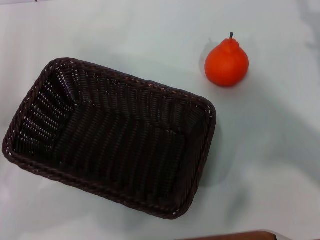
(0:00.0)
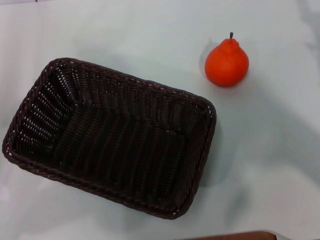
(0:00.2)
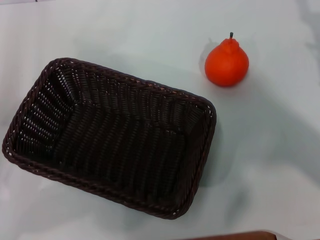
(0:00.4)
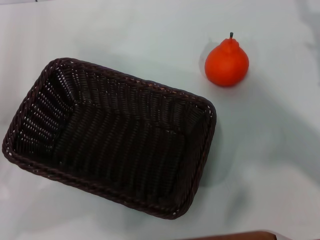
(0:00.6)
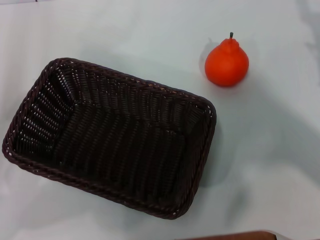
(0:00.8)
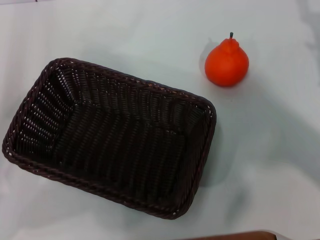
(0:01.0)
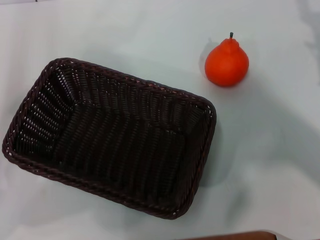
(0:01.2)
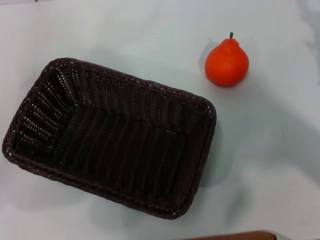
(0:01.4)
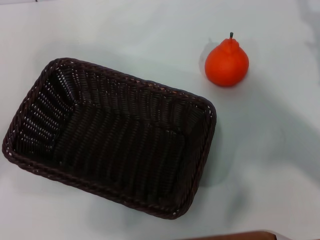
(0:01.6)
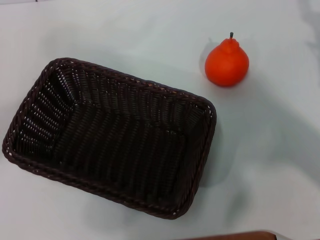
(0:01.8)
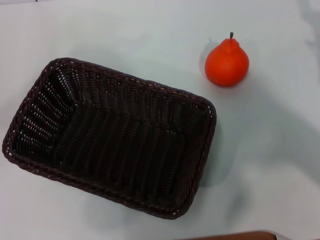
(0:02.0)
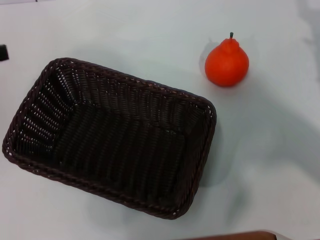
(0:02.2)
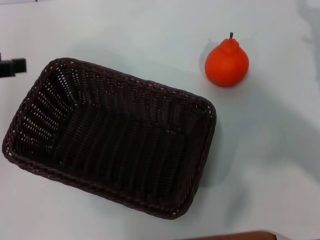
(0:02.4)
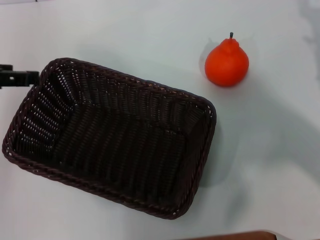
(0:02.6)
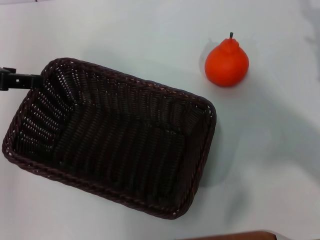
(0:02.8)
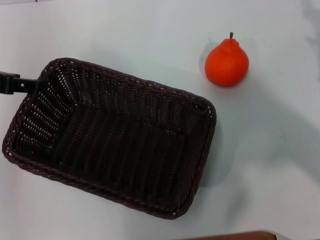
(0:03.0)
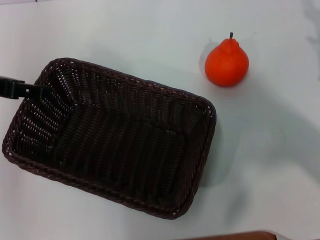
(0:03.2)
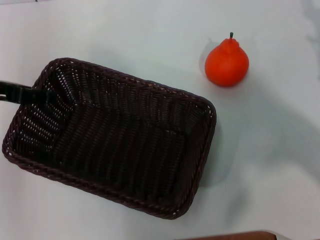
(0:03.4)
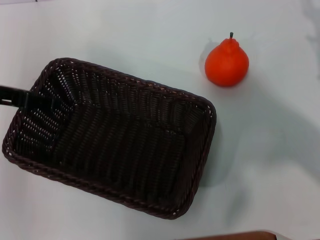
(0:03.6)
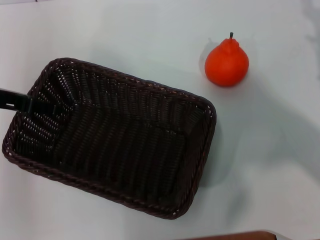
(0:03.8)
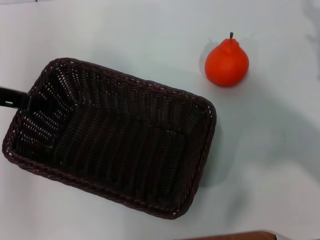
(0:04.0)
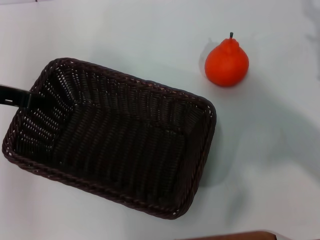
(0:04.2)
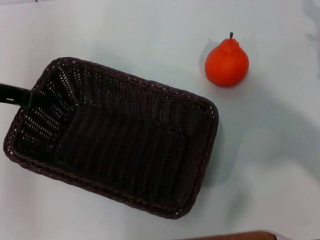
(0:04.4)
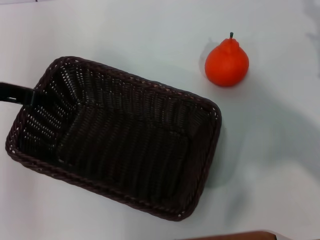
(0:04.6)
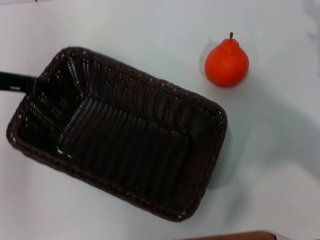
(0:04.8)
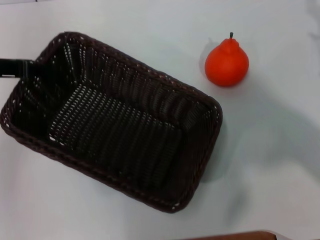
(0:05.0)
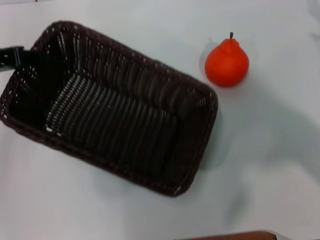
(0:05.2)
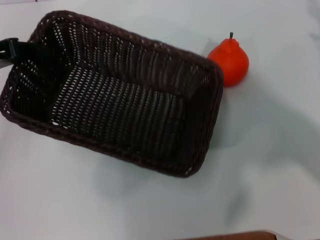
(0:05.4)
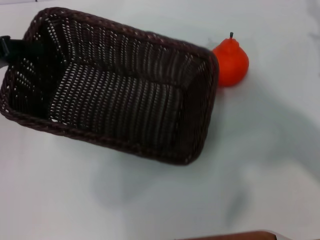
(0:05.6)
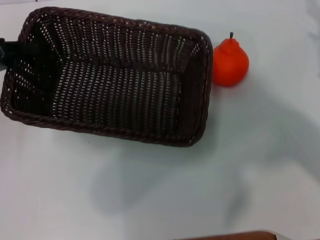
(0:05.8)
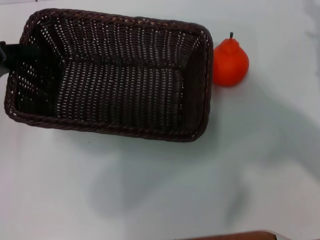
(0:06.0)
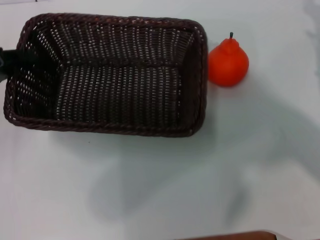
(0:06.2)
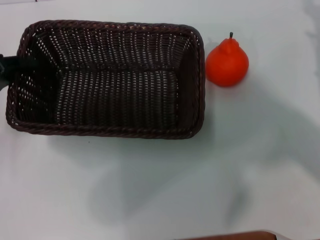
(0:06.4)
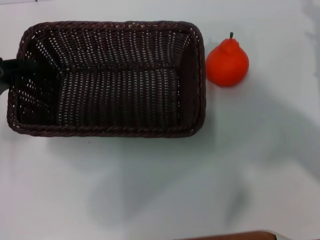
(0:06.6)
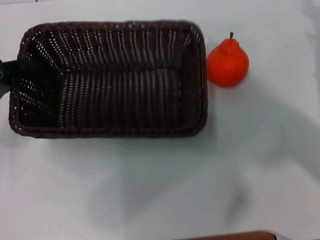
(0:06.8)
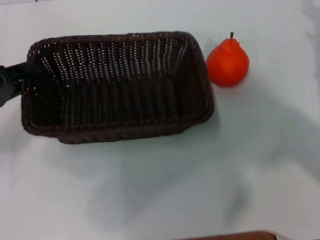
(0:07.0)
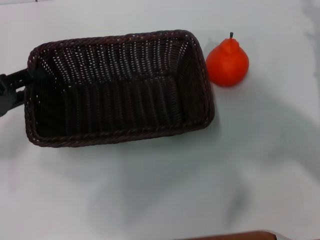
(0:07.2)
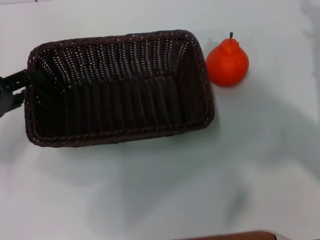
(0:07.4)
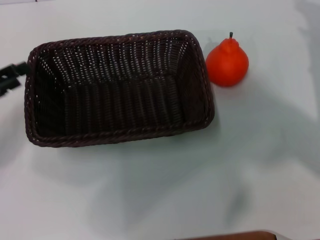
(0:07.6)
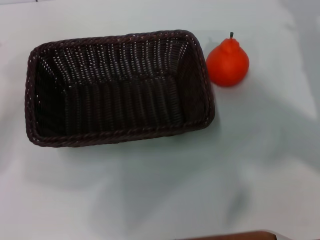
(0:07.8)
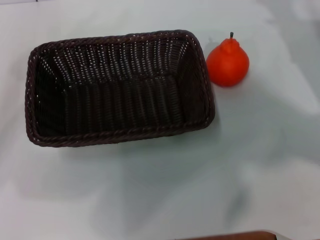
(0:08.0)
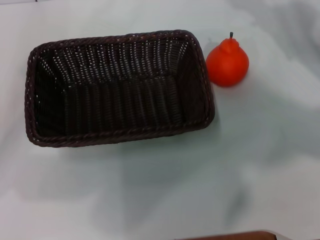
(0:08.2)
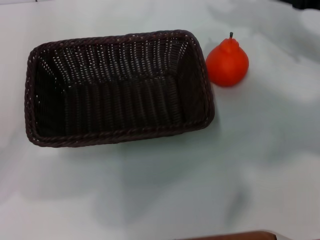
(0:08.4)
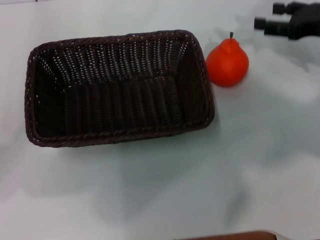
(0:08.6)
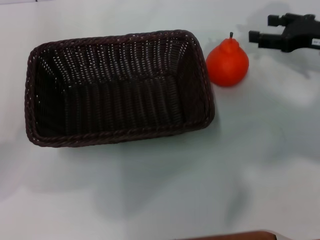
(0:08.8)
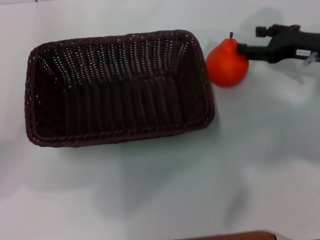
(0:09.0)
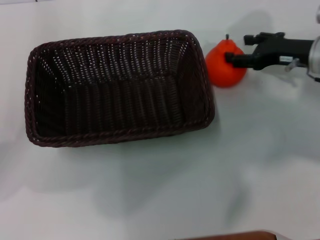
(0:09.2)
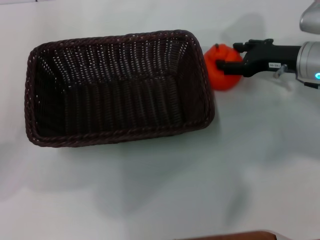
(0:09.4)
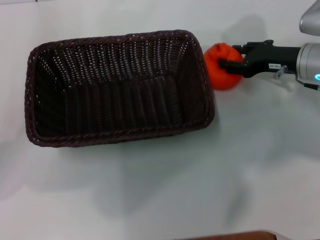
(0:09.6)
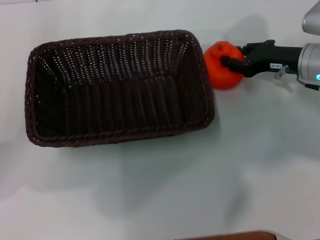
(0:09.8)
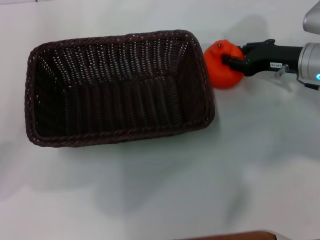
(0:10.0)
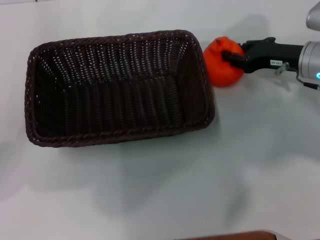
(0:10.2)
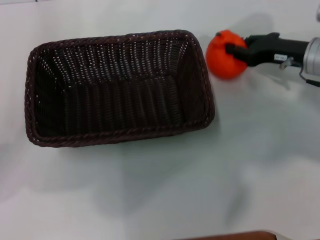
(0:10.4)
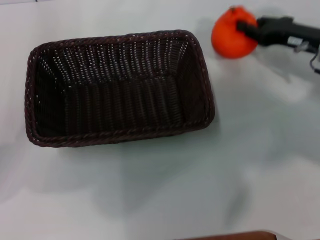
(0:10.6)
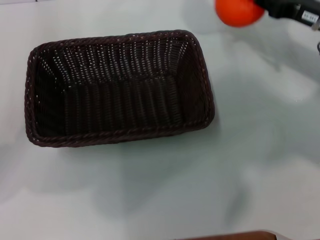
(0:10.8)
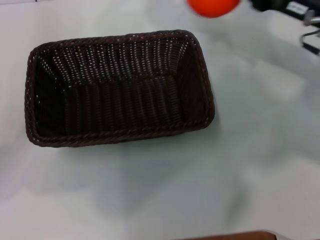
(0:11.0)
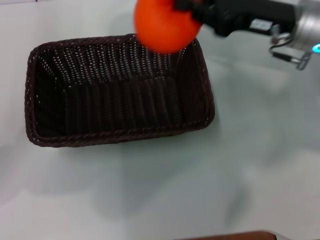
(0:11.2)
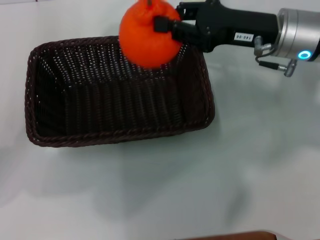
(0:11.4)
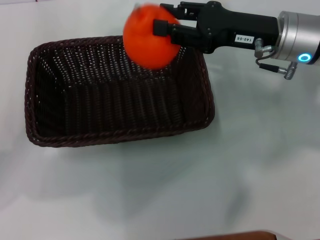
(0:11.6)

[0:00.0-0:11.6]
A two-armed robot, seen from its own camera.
Task of the whole recording: the left gripper pick up the black basket and place it horizontally in the middle of the table, the right gripper pick up the orange and place it into the black basket.
Step, 0:00.0 to 0:05.2: Pick up the dark basket with the left gripper.
Step, 0:05.4 to 0:07.4: Place the dark basket in the center of view with the left gripper.
Step, 0:07.8 to 0:10.4: Pick up the orange with the right gripper.
0:01.4 to 0:02.8: The left gripper shifts roughly 10 cm upward and forward.
0:02.8 to 0:04.4: The left gripper moves some 5 cm, and closes.
0:05.8 to 0:07.2: The left gripper is displaced downward by about 5 cm, and opens up.
0:07.2 to 0:08.8: The left gripper opens its fingers; the right gripper ends up roughly 5 cm from where it was.
0:08.8 to 0:10.2: The right gripper changes place by roughly 5 cm, and closes.
0:10.2 to 0:11.6: The right gripper heads to the left and upward, covering roughly 10 cm.

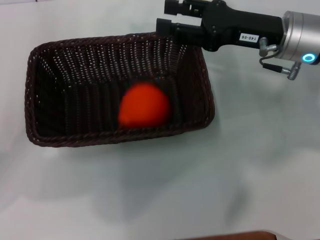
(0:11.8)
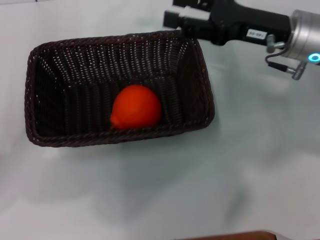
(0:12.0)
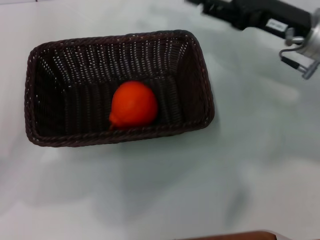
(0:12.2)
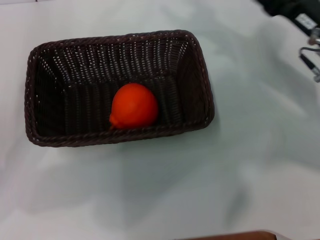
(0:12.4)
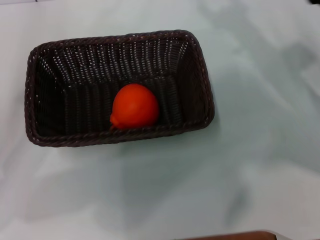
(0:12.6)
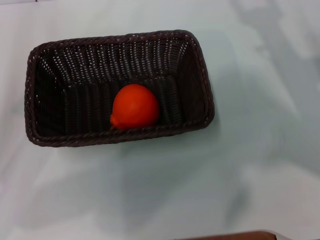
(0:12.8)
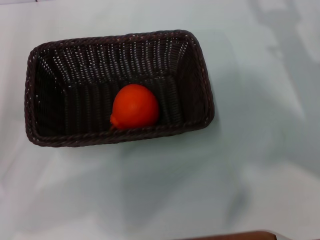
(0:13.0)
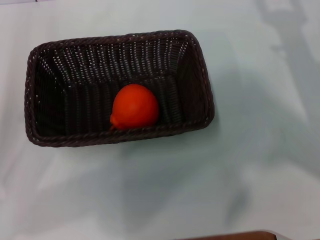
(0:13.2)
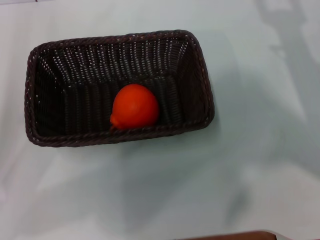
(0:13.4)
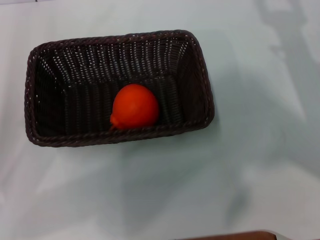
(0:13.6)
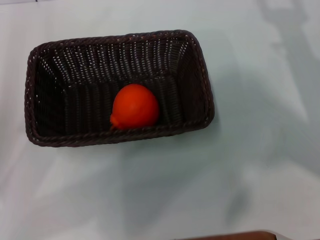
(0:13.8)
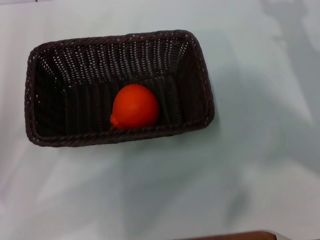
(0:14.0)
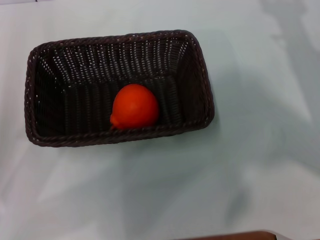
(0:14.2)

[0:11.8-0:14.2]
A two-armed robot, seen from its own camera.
Task of the whole recording: the left gripper pick up the black basket and place it horizontally in the middle of the table, the right gripper pick up the orange and place it into the black basket.
0:11.8 to 0:13.0: The right gripper shifts about 15 cm to the right, backward and downward, and opens.
